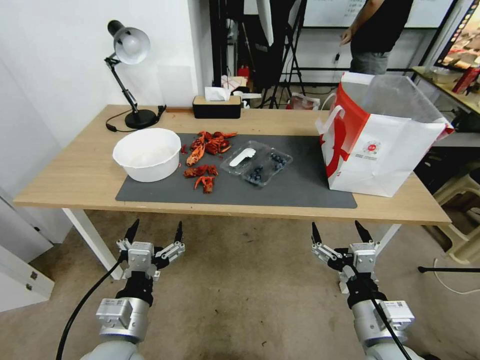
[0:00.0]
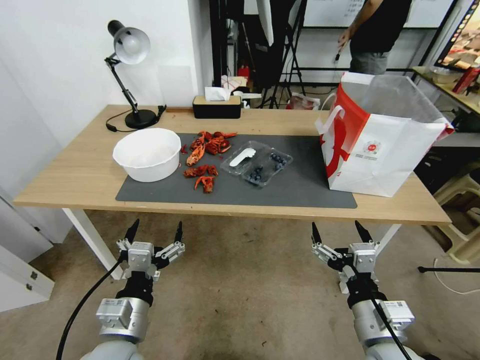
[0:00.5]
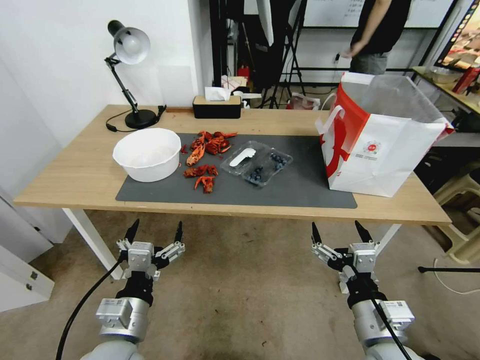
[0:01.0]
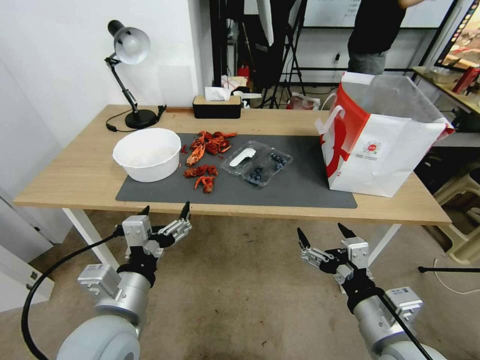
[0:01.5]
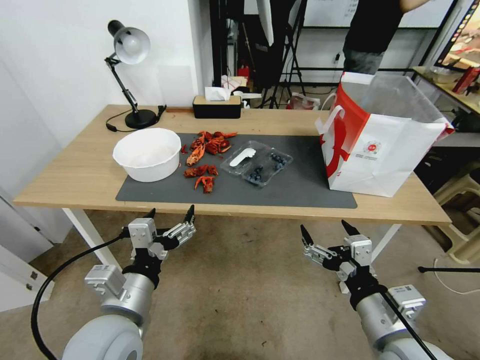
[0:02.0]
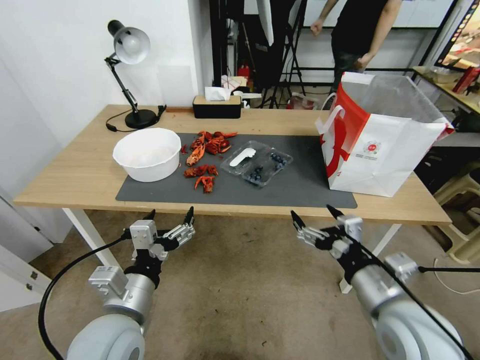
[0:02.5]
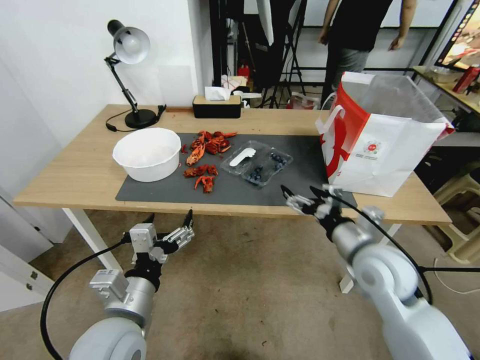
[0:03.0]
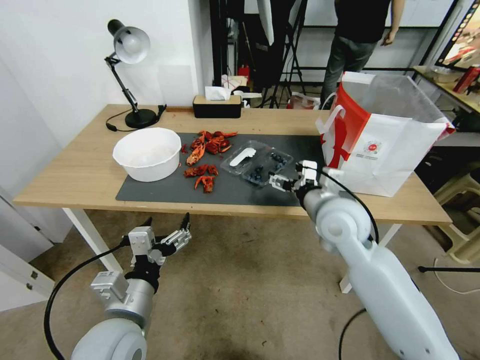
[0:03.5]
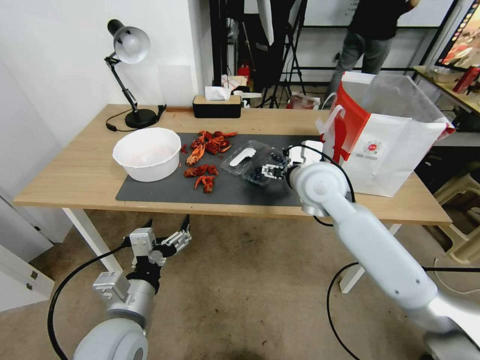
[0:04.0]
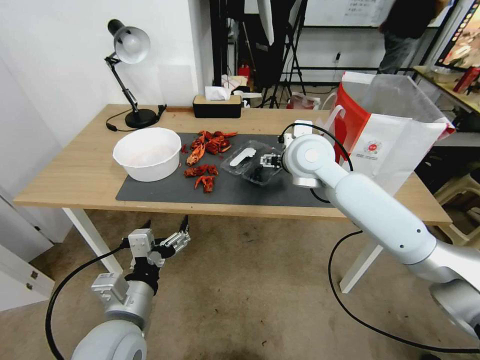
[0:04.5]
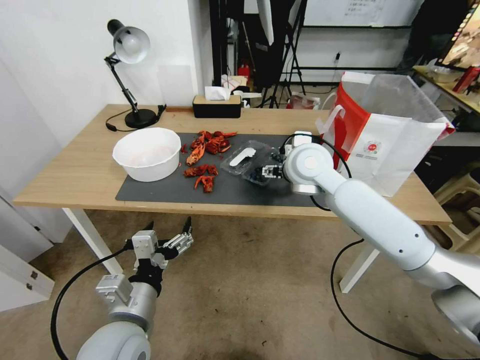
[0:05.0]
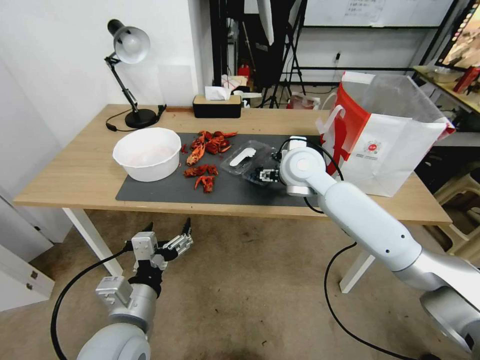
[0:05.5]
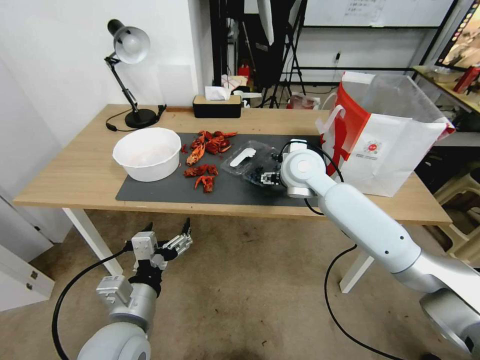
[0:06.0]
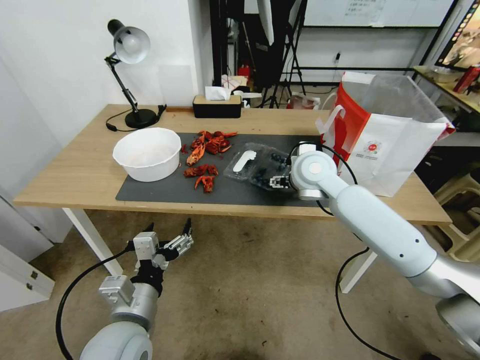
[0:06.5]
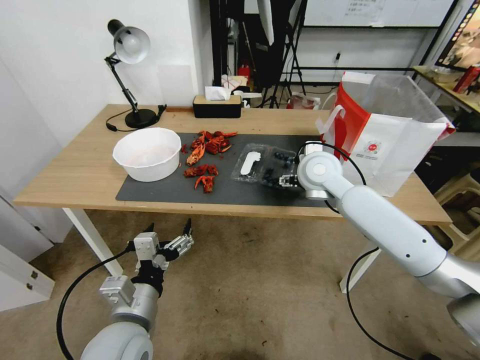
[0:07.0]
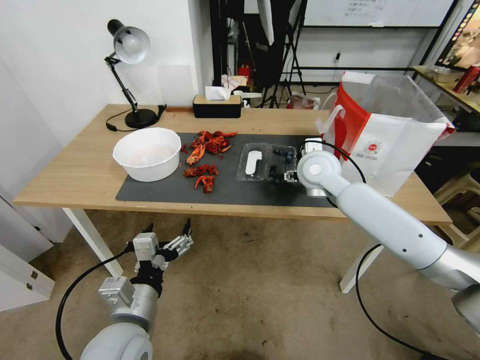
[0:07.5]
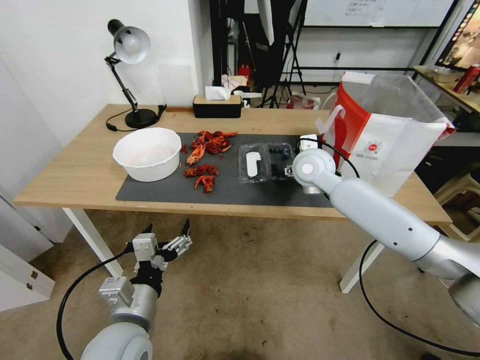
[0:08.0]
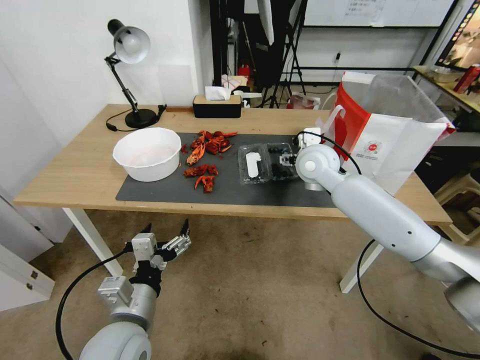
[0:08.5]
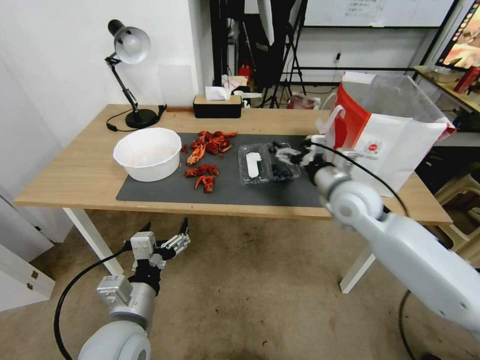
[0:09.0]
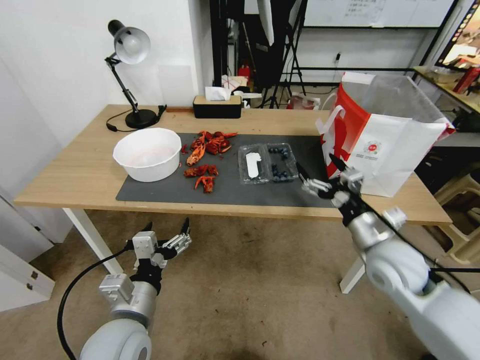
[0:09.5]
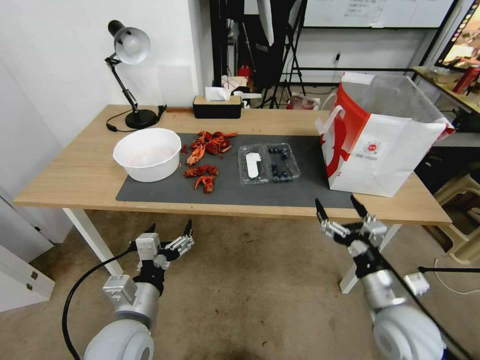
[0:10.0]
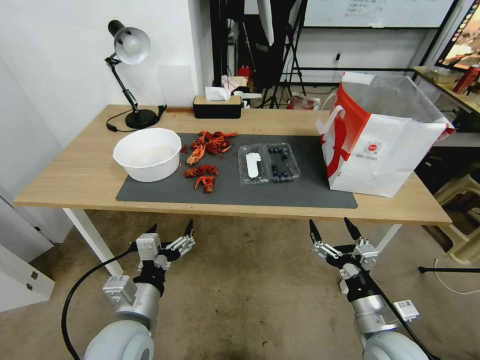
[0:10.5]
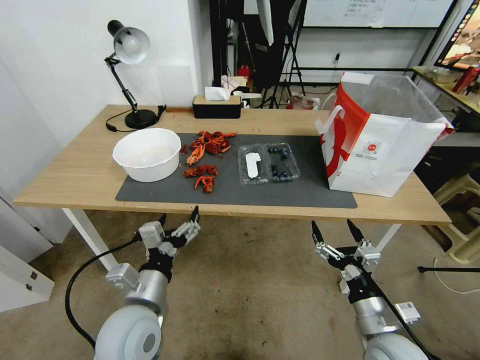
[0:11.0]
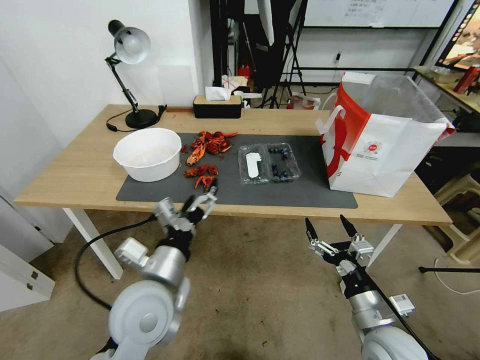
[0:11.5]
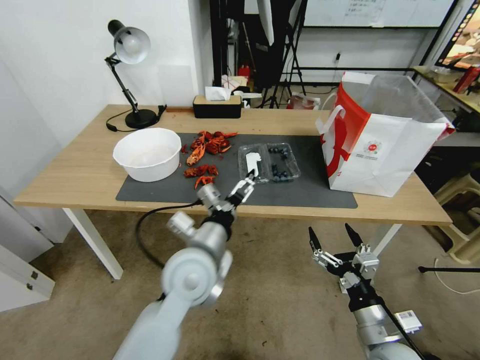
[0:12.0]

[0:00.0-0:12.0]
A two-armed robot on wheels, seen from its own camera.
Task of the whole recording: Close the takeout container lid, then place the container into the takeout bag.
2.0 to 4.0 s: The right gripper moves forward, about 30 cm.
4.0 to 6.0 s: The right gripper shifts about 5 cm forward.
6.0 to 8.0 s: There are only small adjustments of the grippers.
8.0 to 10.0 s: The right gripper is displaced backward, downward and to the right by approximately 35 cm.
10.0 to 12.0 s: The left gripper moves to the right, forward and upward, approximately 15 cm. The right gripper shifts by roughly 5 cm.

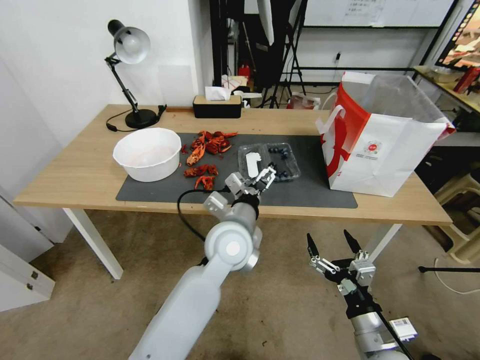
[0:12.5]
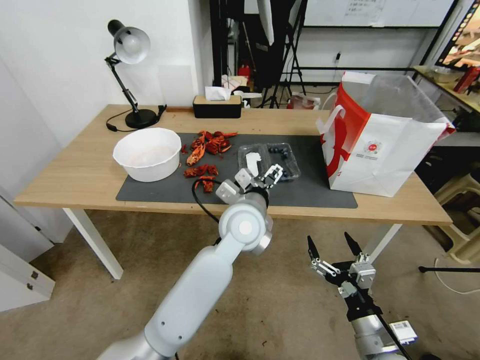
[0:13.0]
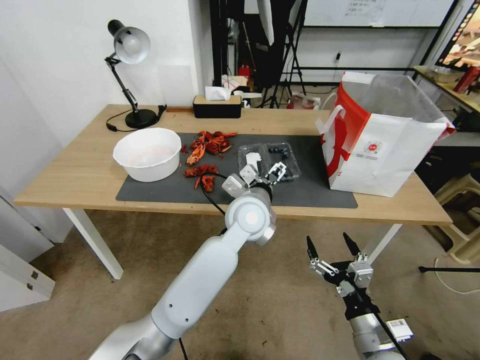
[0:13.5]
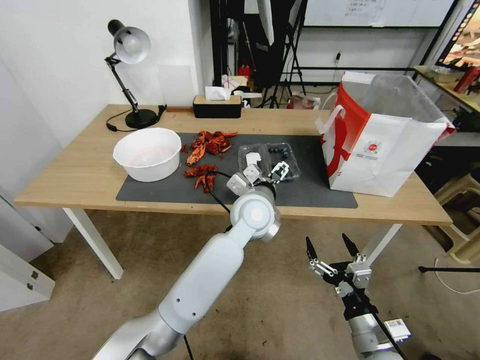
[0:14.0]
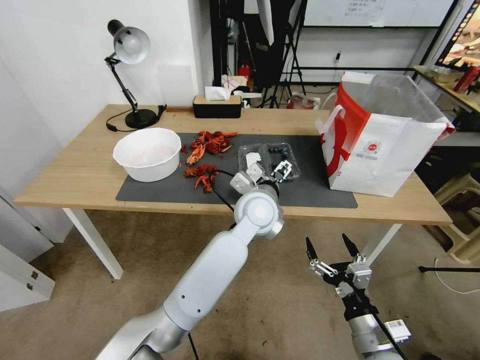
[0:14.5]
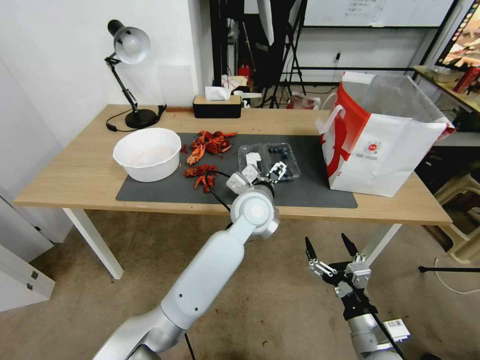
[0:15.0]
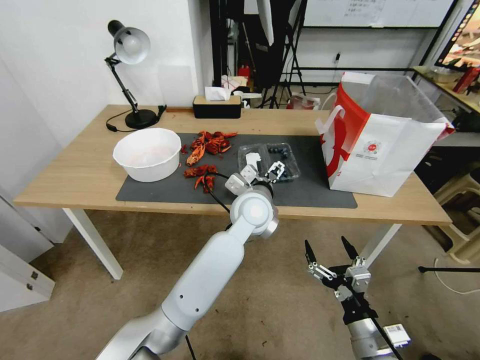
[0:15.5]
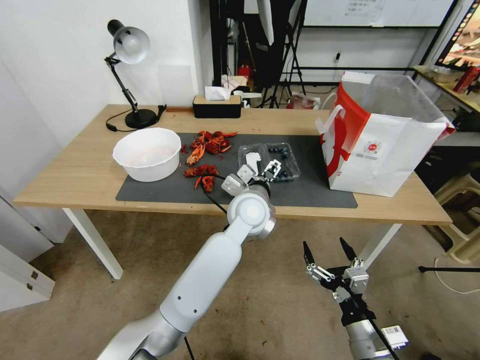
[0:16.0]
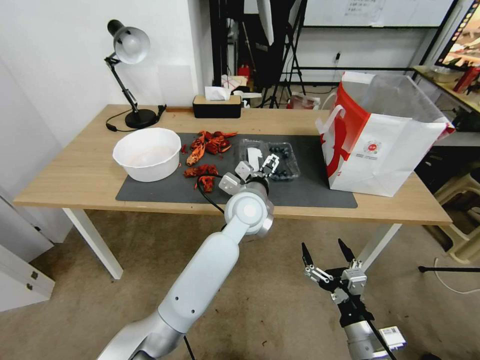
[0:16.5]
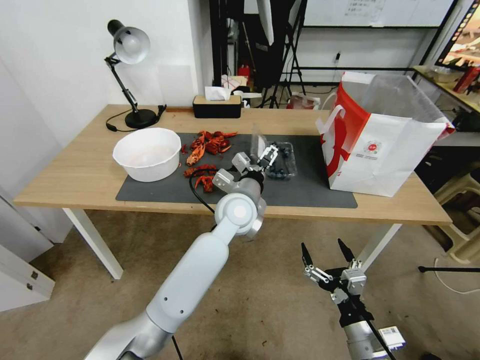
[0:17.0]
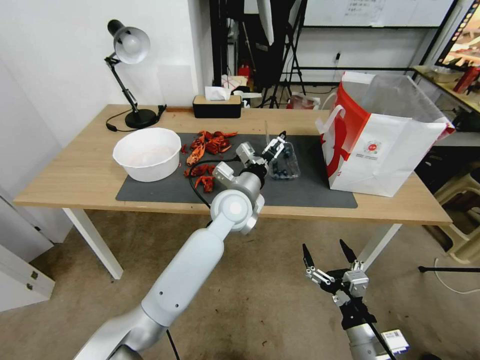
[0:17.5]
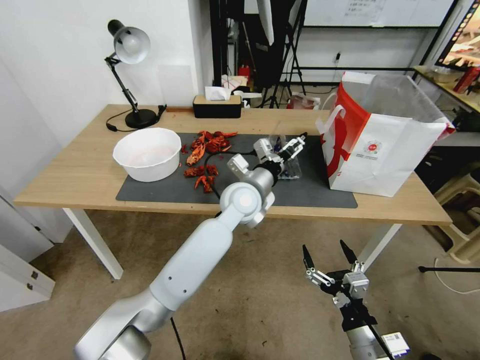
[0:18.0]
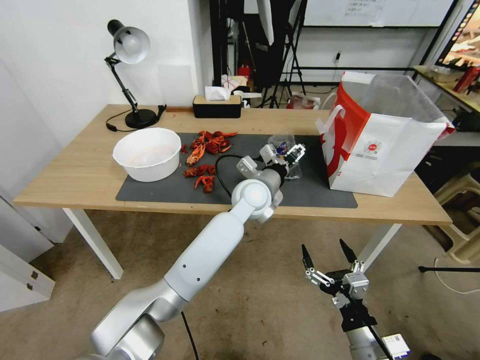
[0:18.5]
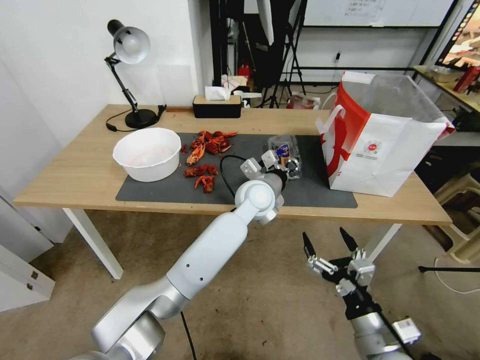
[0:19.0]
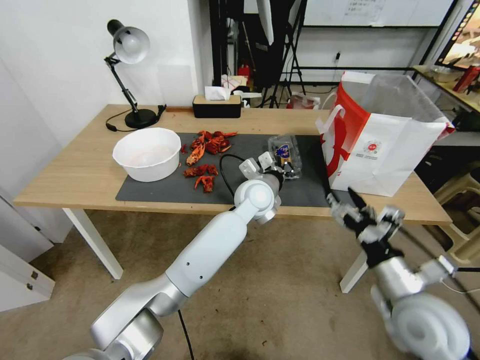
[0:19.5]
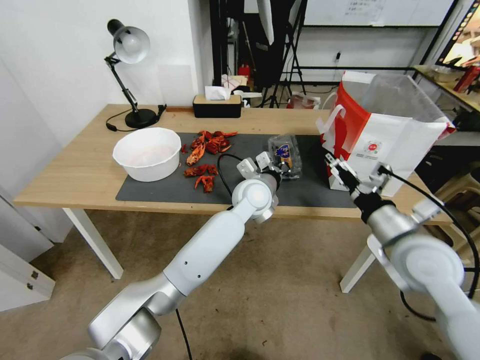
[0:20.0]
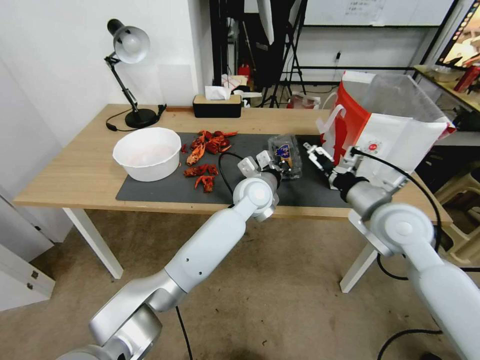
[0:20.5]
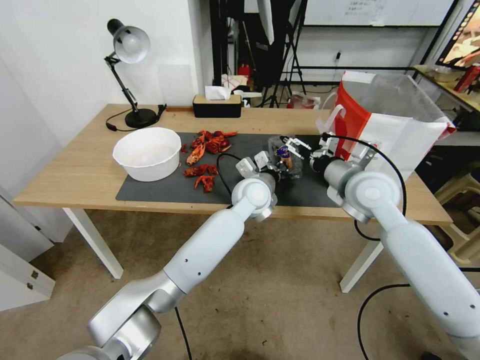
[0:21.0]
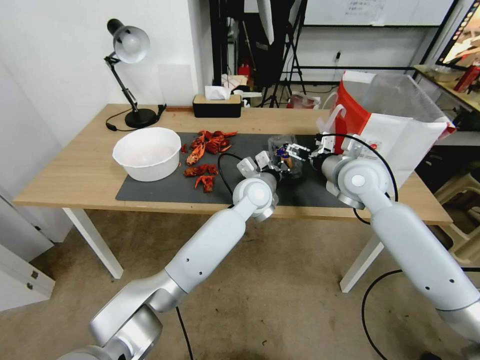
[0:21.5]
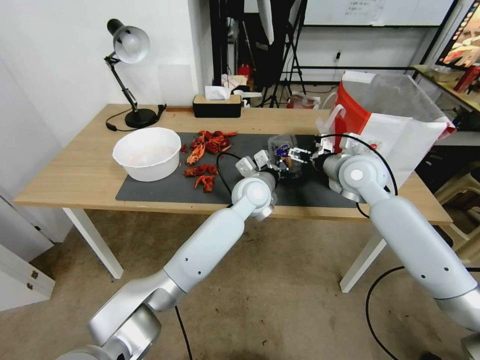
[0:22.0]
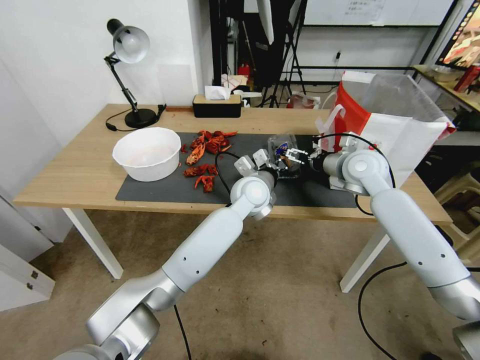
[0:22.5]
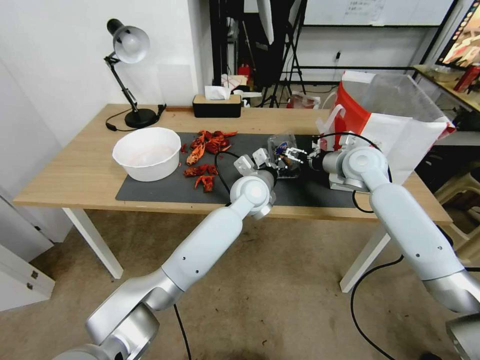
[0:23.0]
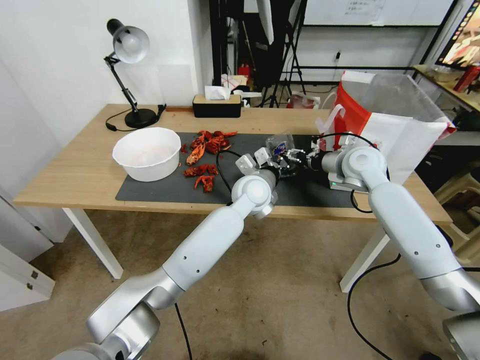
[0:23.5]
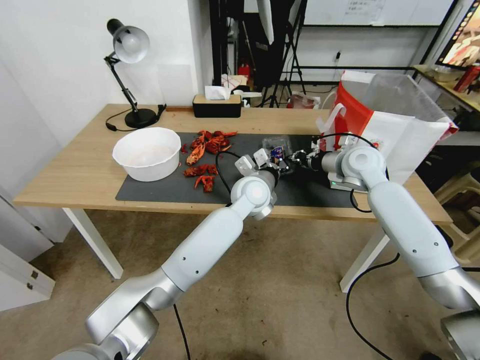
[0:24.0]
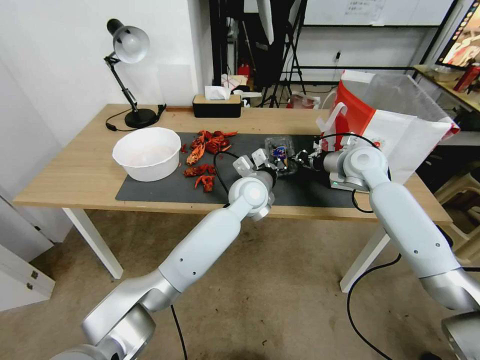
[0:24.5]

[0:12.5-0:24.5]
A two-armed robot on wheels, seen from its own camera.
Task of the whole recording: Close the takeout container lid, then place the container into the takeout bag.
12.5 to 14.5 s: The left gripper travels forward and to the right by some 10 cm.
14.5 to 16.5 s: The grippers move only a little.
18.5 to 20.5 s: The right gripper heads forward and upward, covering approximately 30 cm, while the left gripper closes its fingers.
20.5 to 22.5 s: The right gripper travels forward by about 15 cm.
22.5 to 24.5 s: The right gripper closes up.

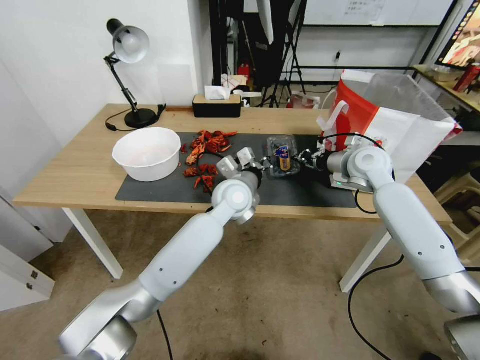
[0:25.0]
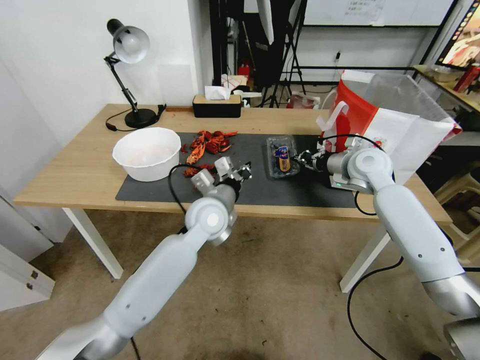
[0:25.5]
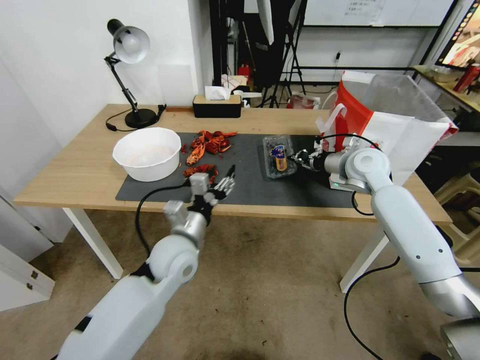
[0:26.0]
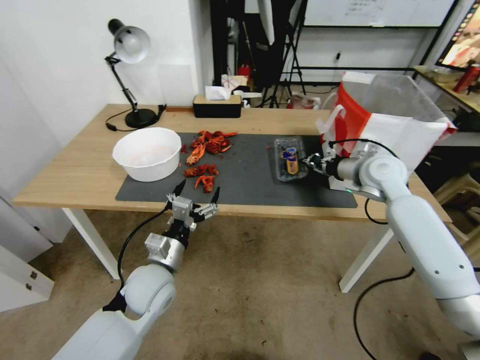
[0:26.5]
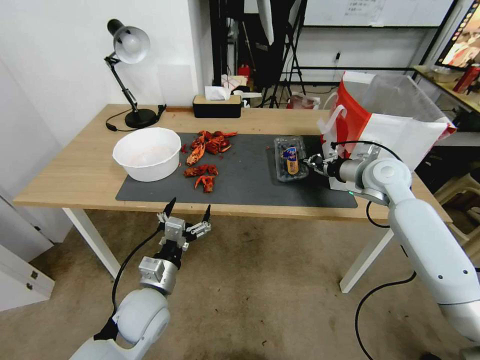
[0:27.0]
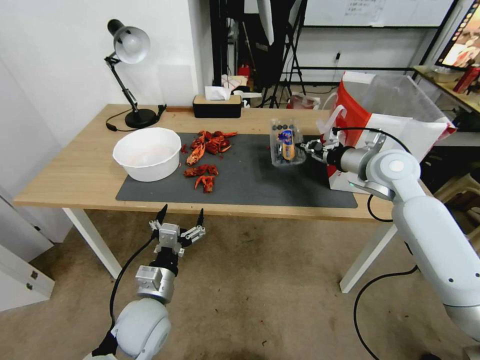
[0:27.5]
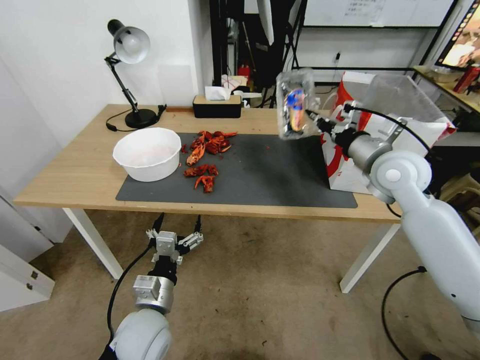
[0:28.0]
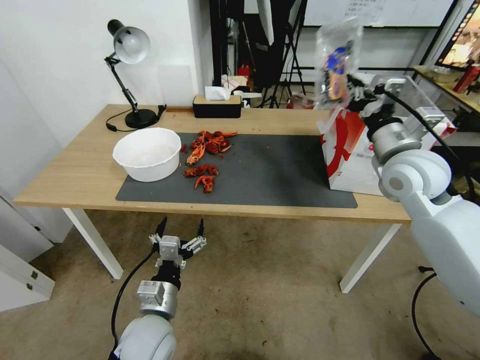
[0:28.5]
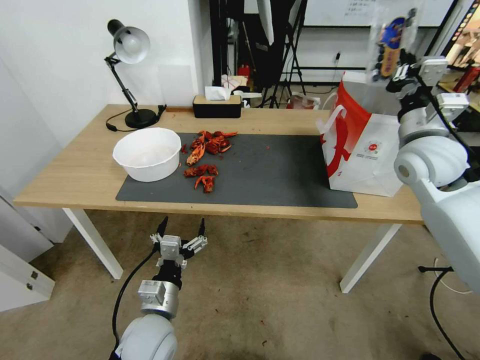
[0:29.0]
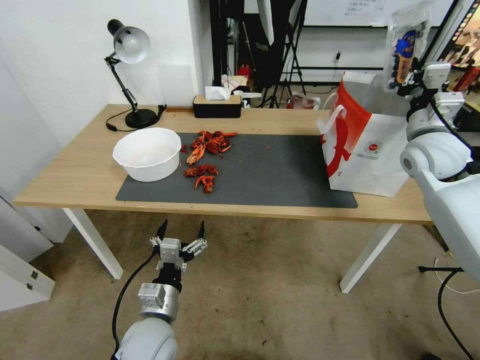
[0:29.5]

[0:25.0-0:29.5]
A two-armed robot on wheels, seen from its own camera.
Task of the whole recording: Close the takeout container lid, then place the container into the takeout bag.
25.0 to 27.0 s: The left gripper heads backward, to the left and downward, covering roughly 30 cm, and opens up.
27.0 to 29.5 s: The left gripper shifts by some 5 cm; the right gripper heads upward, covering some 10 cm.
